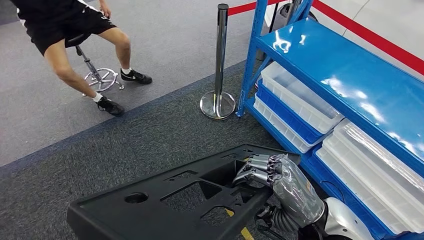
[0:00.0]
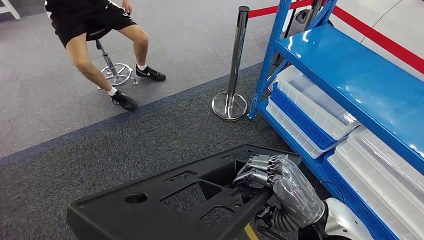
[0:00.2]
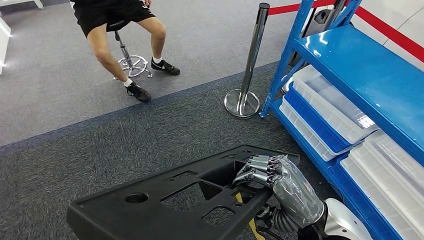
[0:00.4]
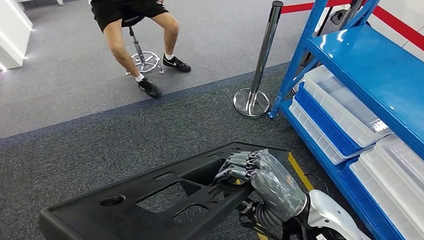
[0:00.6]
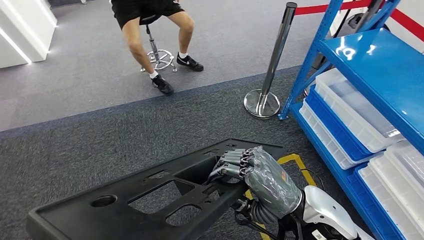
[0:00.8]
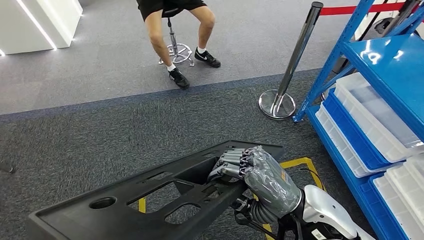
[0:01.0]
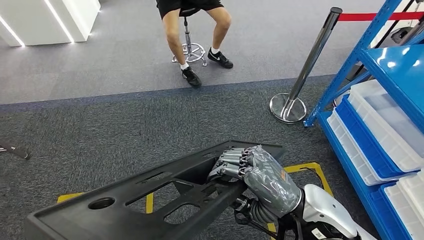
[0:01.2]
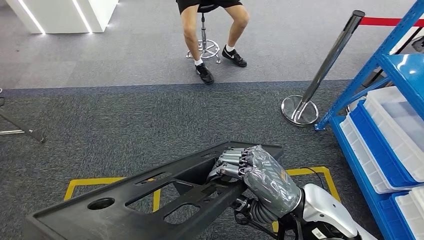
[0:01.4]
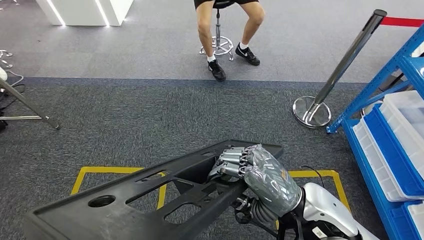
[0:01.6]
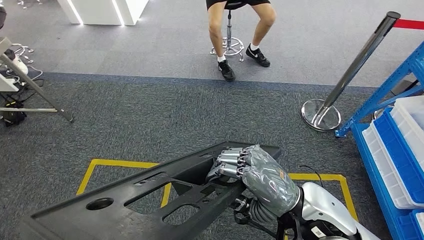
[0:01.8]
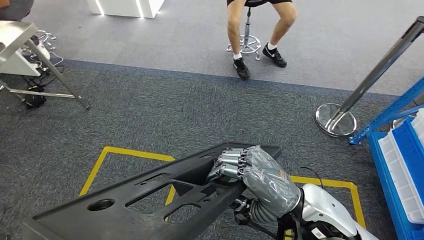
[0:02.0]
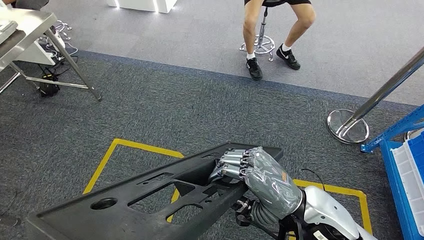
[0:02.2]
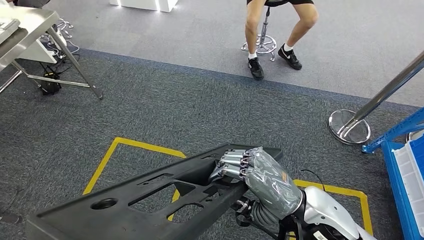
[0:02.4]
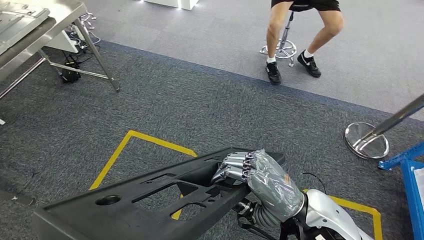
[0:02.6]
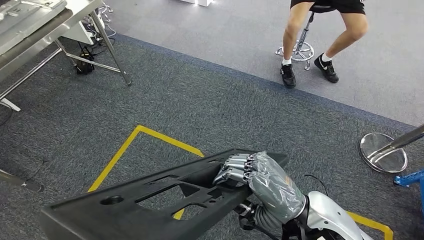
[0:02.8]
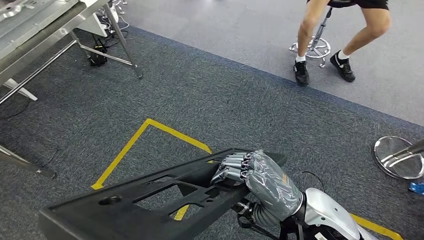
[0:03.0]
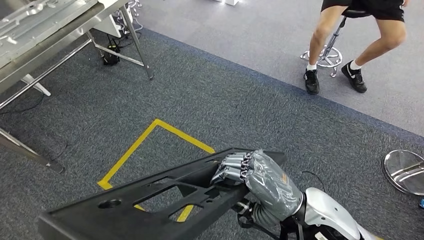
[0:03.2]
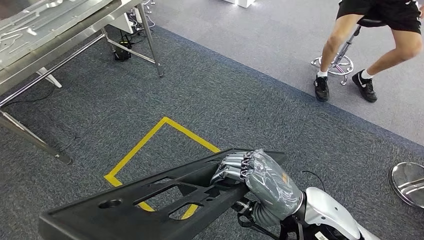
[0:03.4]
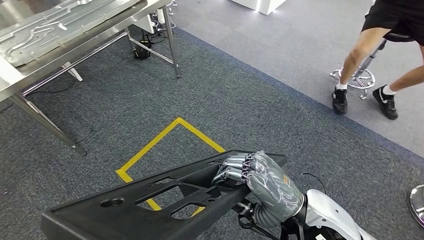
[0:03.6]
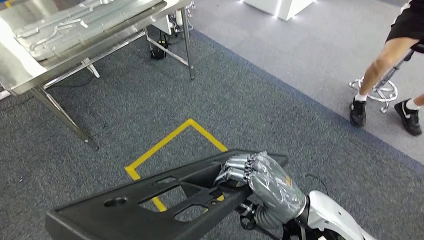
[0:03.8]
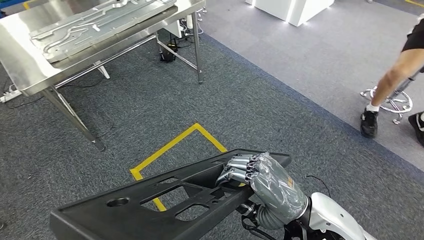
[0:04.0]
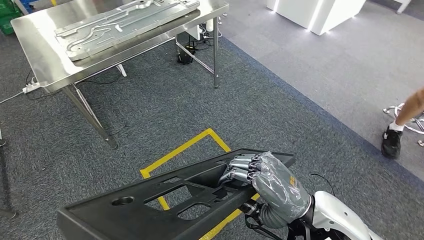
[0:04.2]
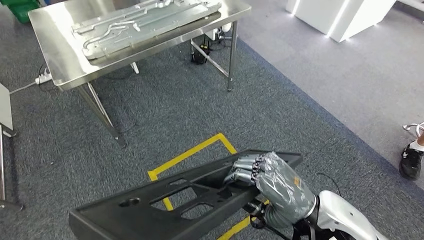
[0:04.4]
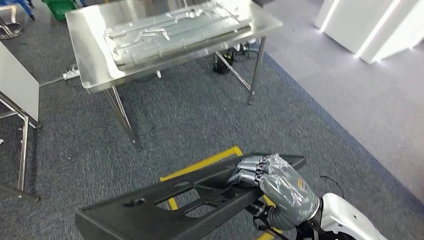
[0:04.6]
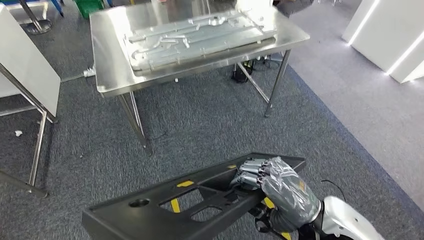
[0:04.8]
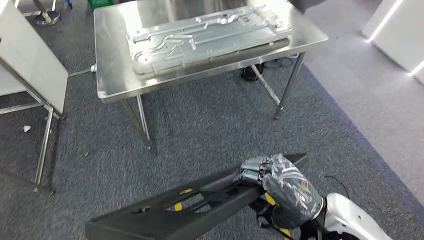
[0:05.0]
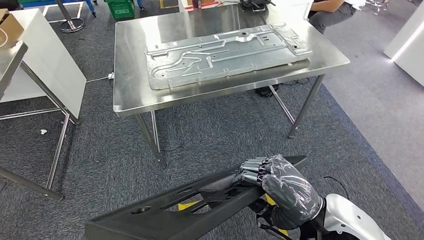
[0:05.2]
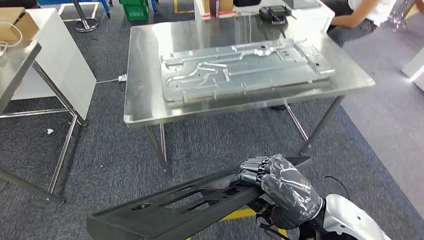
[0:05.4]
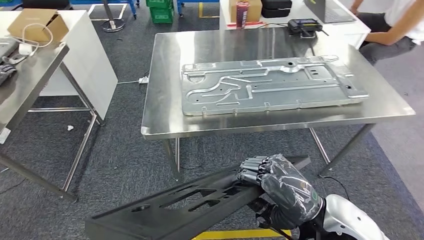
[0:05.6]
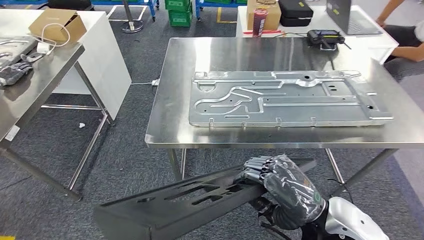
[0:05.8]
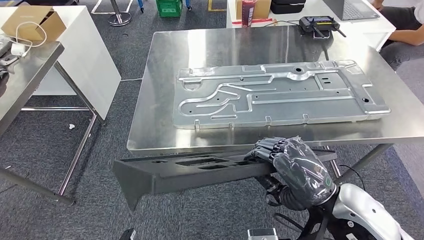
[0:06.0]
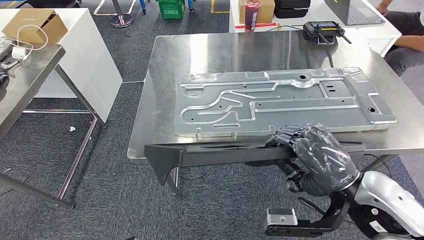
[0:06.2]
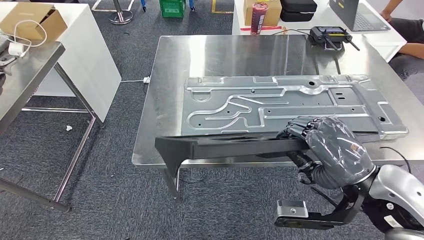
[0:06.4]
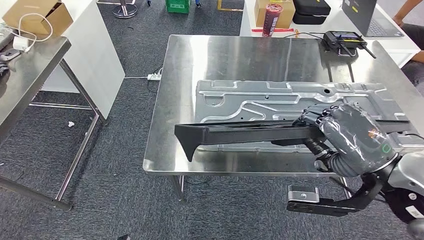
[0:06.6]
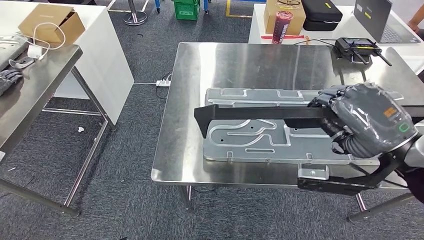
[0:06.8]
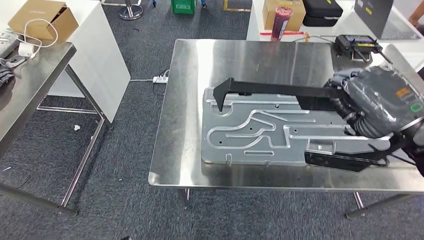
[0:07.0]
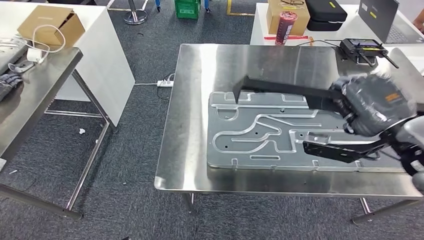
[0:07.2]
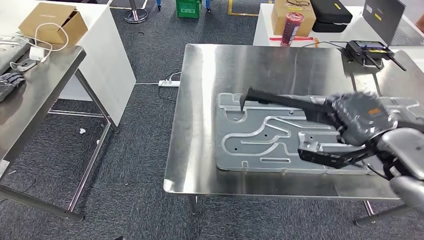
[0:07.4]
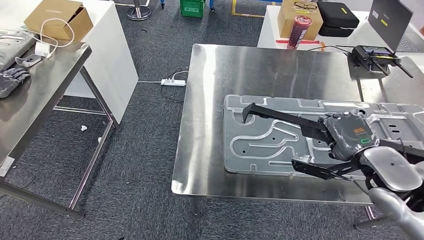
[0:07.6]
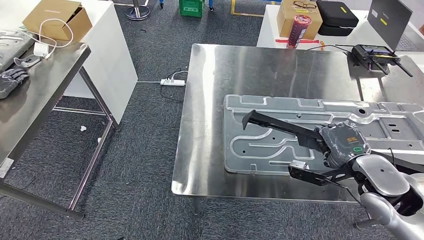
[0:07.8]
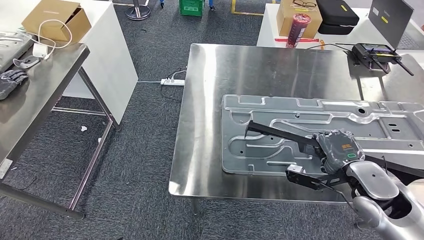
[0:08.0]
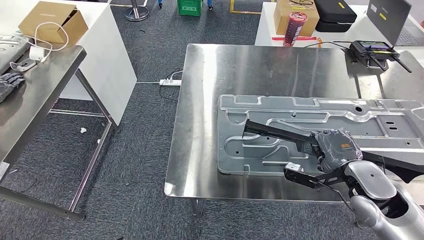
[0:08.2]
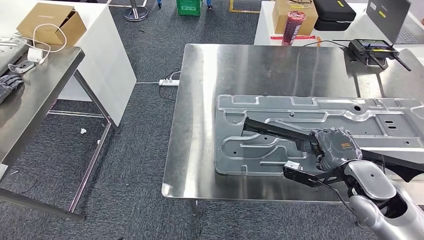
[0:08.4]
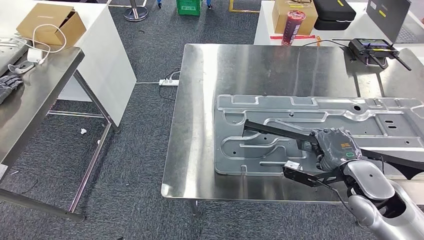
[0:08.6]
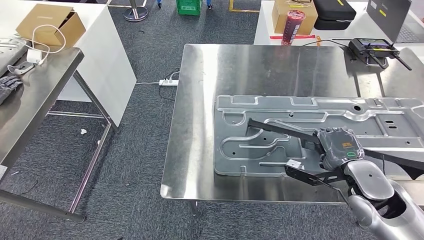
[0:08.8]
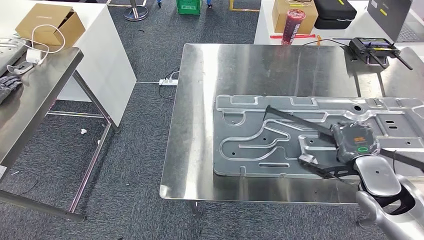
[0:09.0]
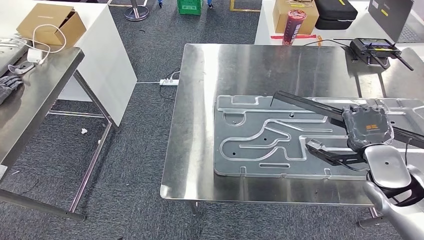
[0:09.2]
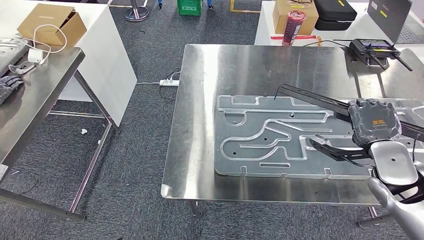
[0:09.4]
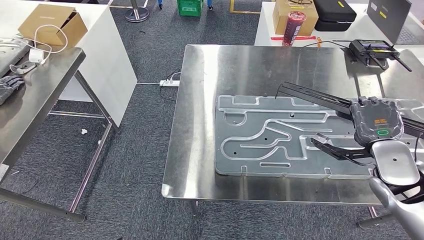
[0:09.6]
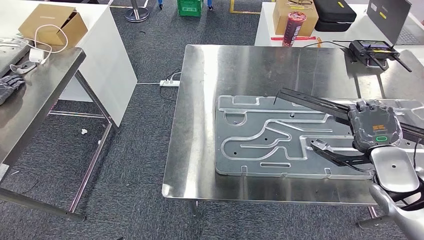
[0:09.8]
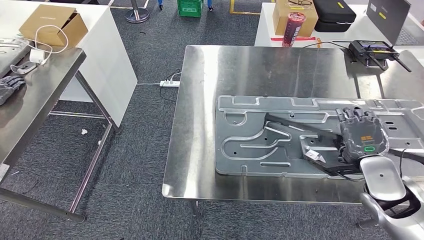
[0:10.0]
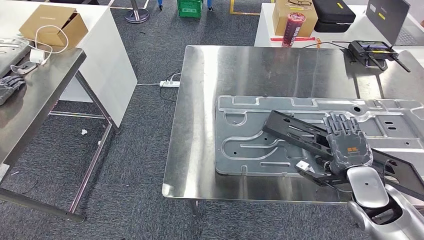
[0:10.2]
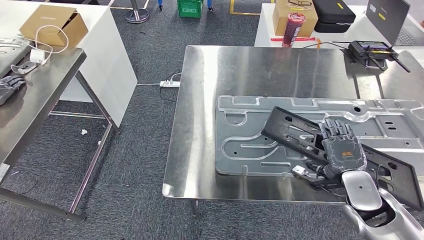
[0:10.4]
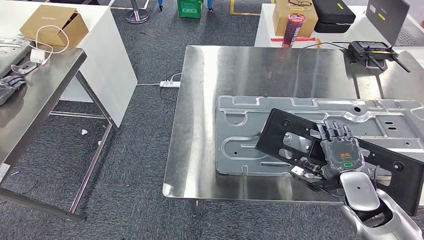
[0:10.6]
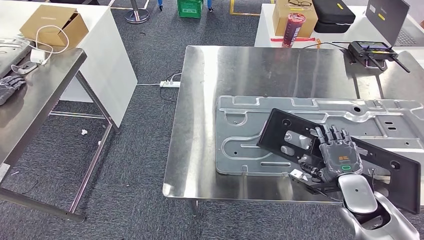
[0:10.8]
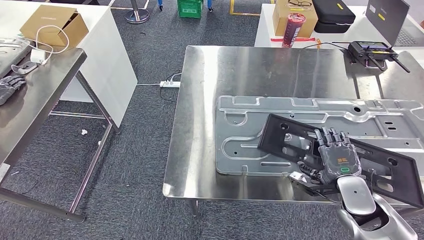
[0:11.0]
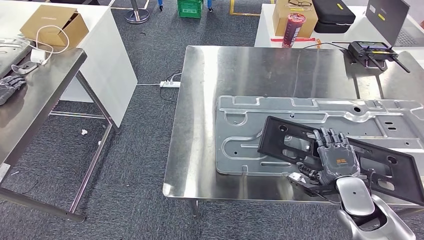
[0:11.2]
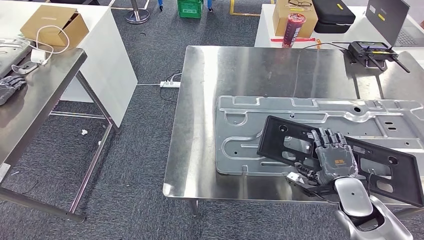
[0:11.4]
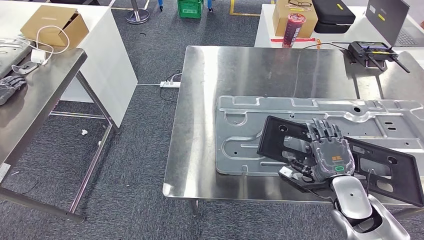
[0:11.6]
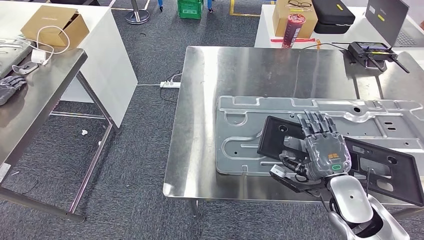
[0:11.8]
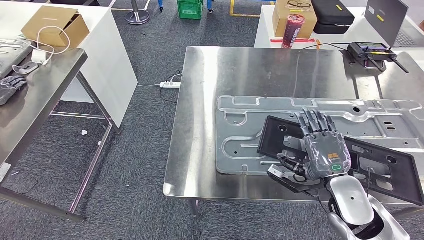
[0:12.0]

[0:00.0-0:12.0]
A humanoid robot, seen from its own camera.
Step, 0:00.0 to 0:06.4: Move the large material to the workbench.
0:10.4 to 0:12.0: The right hand shifts roughly 5 cm to the left.

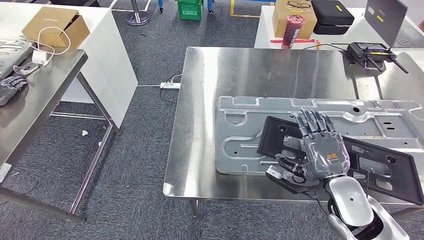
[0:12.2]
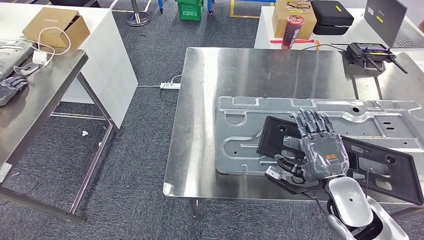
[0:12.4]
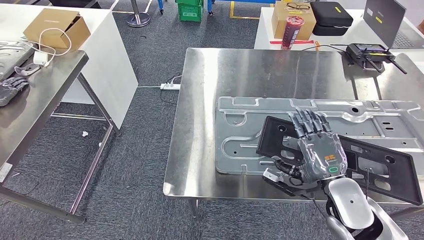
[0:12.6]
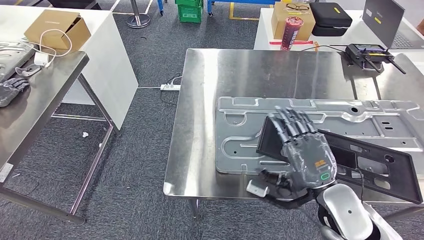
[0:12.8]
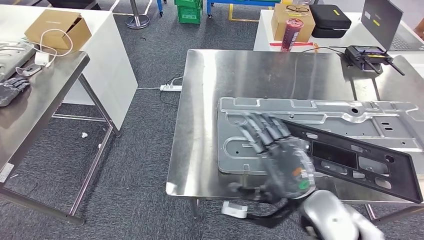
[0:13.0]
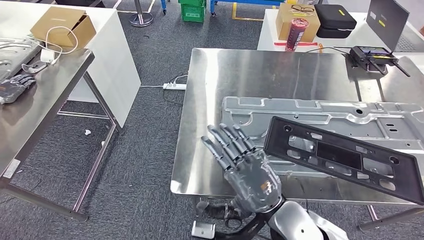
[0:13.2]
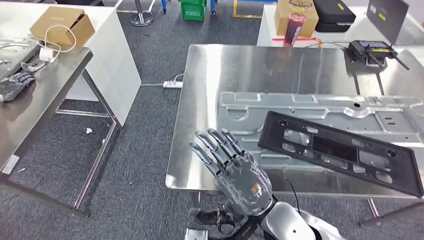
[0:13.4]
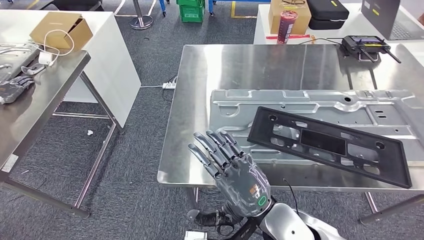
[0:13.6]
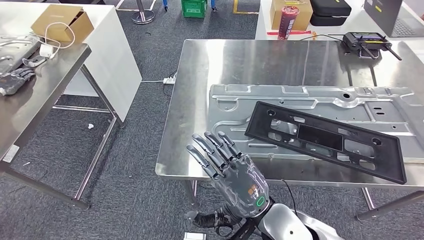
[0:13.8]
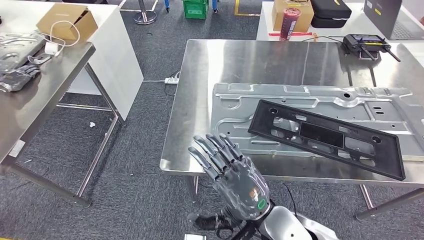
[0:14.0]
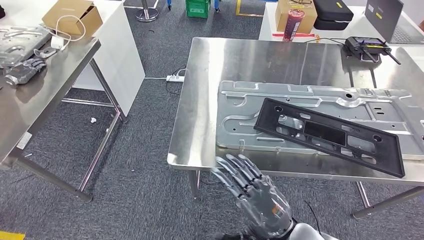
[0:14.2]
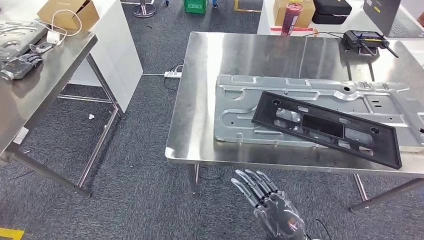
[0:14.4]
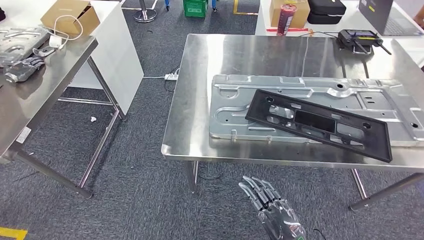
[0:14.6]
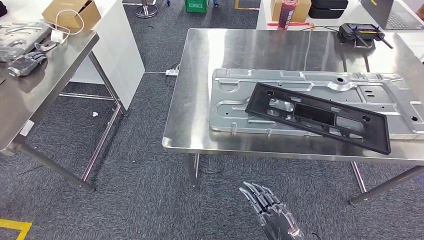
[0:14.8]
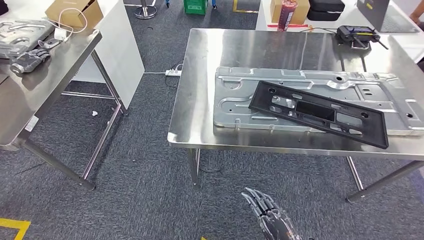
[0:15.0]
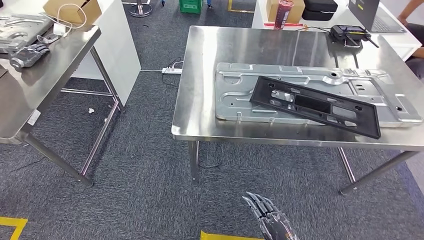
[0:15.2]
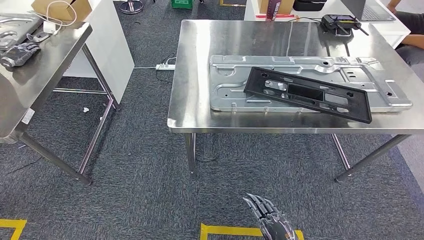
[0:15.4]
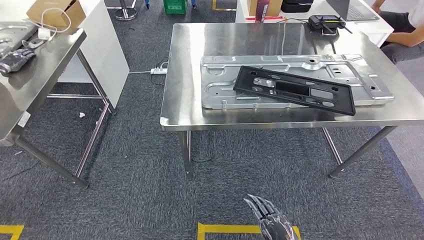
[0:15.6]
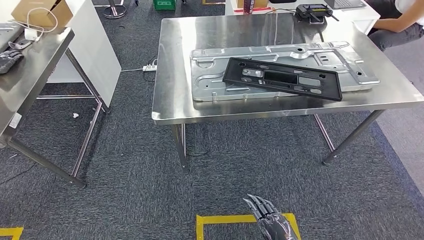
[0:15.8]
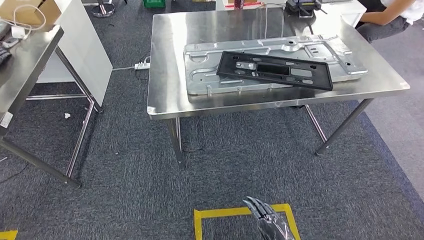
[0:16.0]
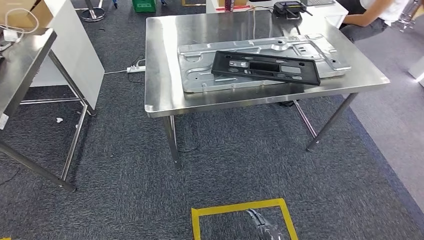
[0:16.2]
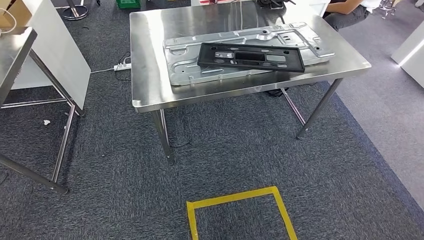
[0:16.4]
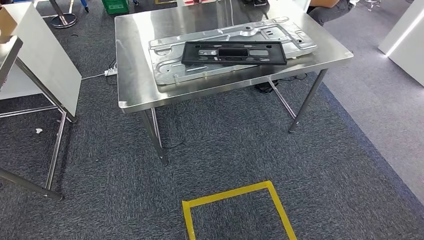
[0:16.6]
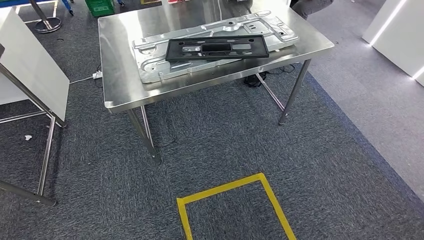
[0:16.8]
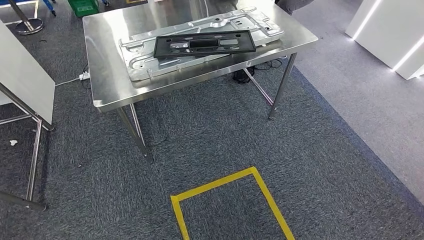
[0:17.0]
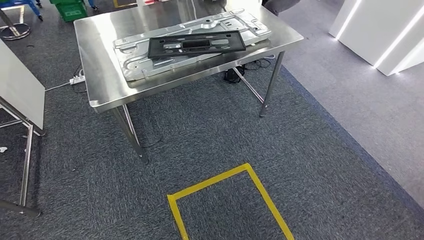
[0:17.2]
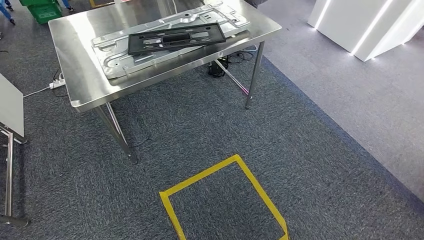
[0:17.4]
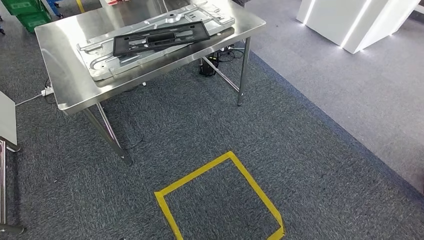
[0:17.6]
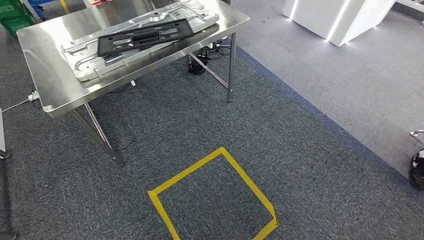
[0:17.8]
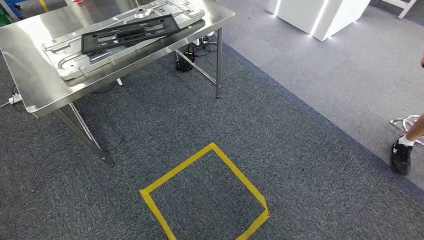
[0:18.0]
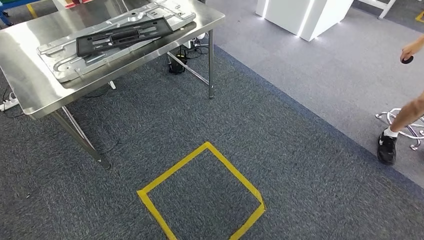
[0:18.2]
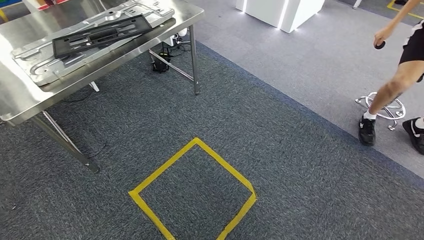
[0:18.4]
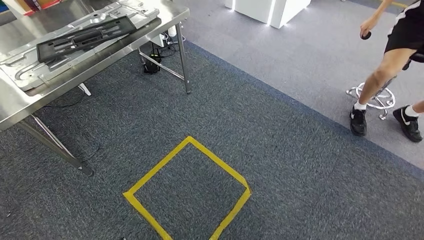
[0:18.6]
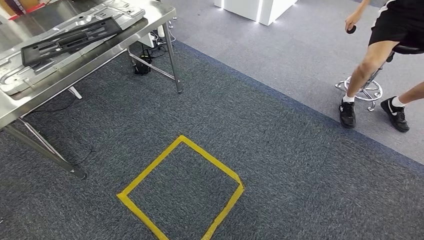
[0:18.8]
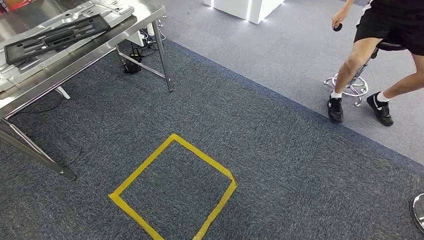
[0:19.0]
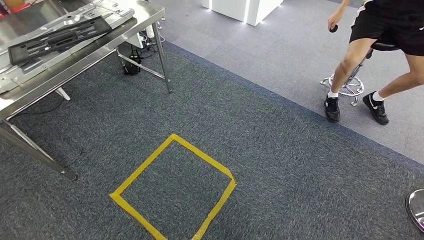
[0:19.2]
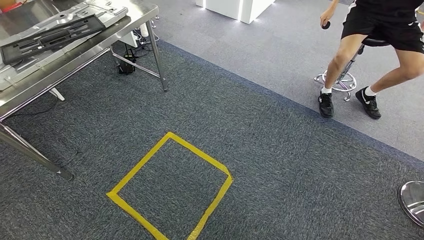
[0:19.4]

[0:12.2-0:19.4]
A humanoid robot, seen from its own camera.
Step, 0:12.2 to 0:16.4: Insert the large material into the corresponding slot on the workbench.
